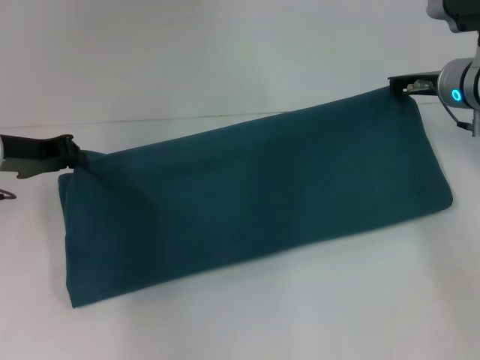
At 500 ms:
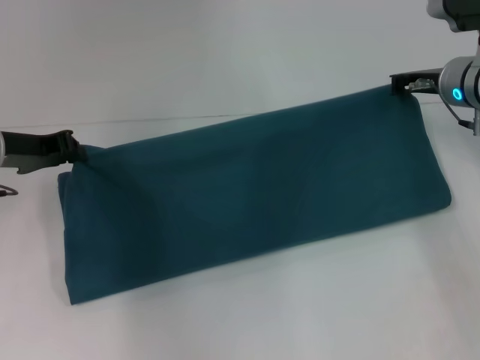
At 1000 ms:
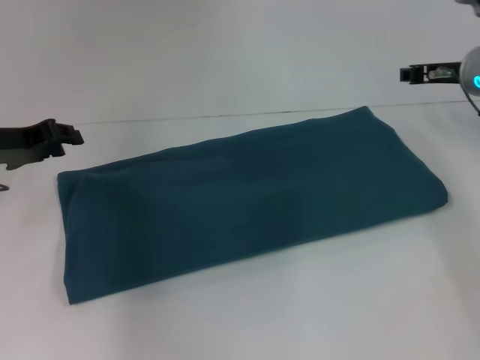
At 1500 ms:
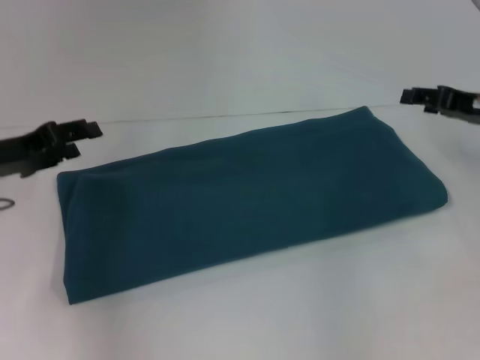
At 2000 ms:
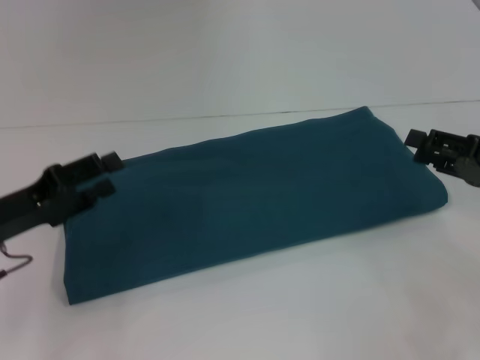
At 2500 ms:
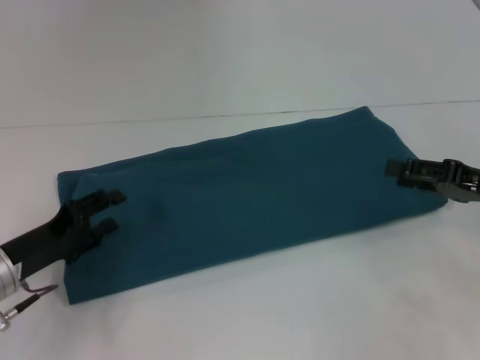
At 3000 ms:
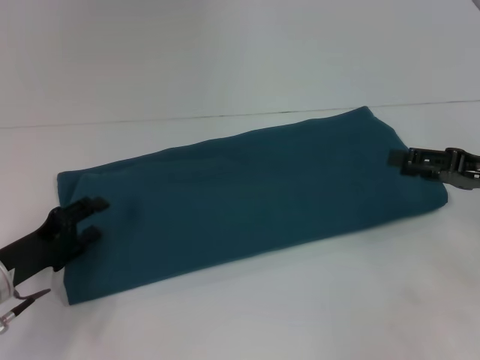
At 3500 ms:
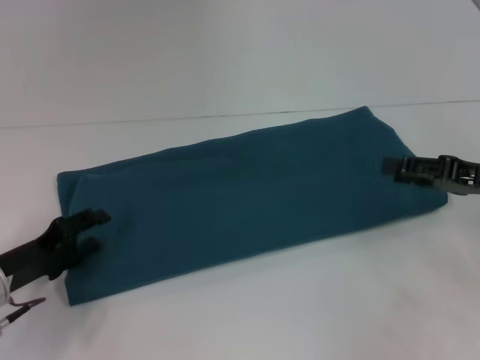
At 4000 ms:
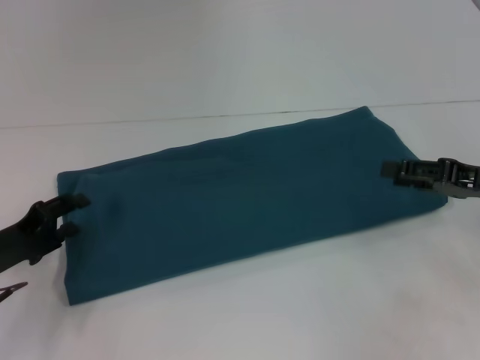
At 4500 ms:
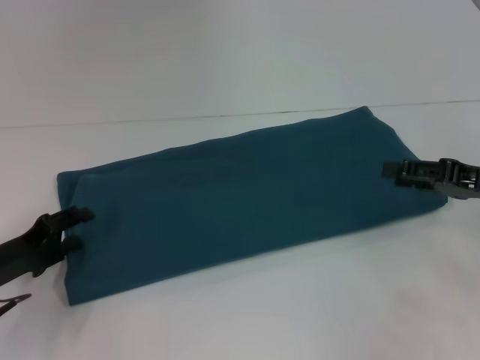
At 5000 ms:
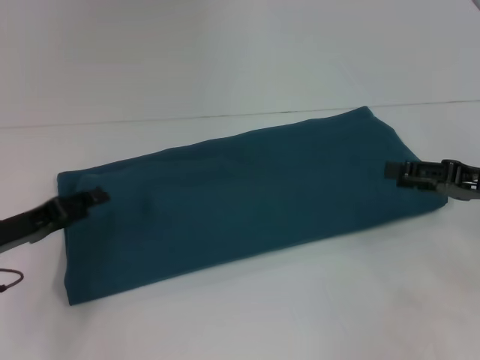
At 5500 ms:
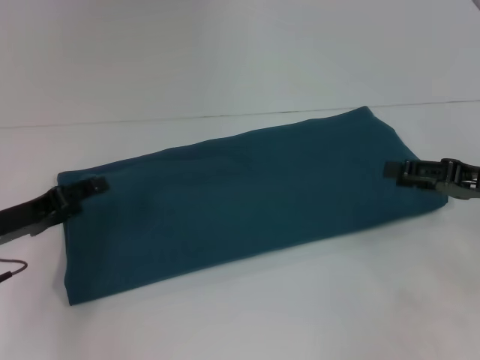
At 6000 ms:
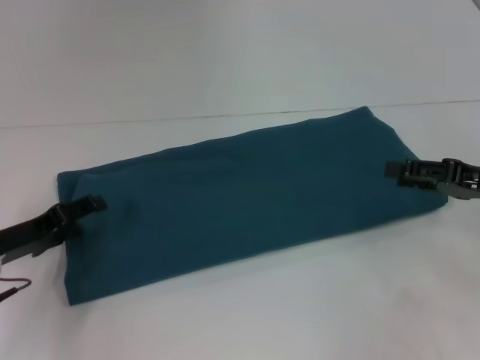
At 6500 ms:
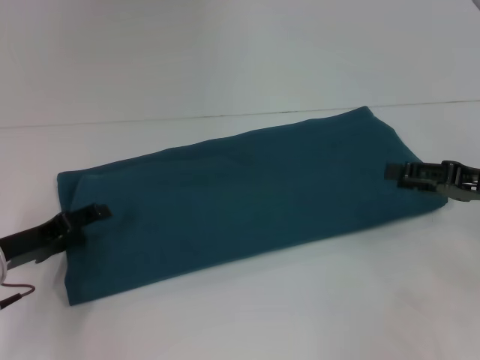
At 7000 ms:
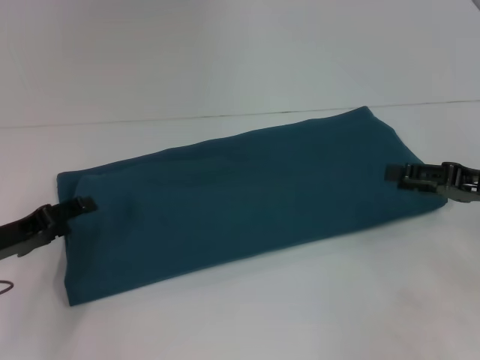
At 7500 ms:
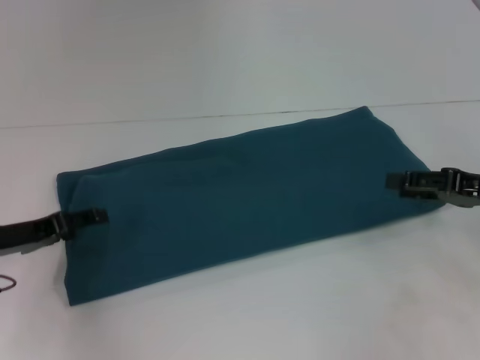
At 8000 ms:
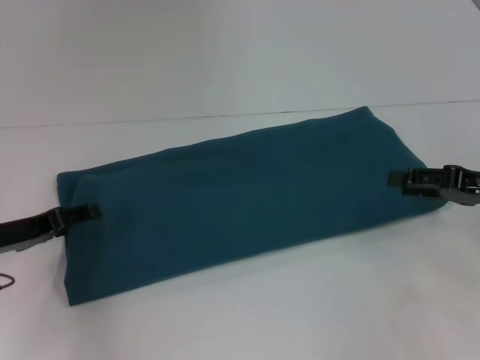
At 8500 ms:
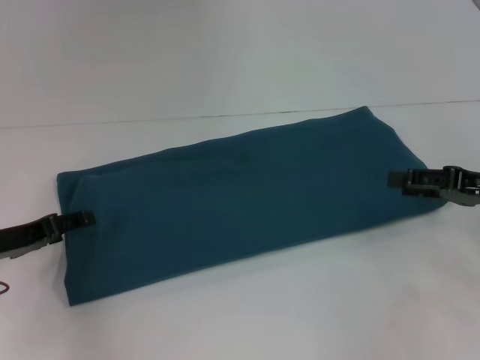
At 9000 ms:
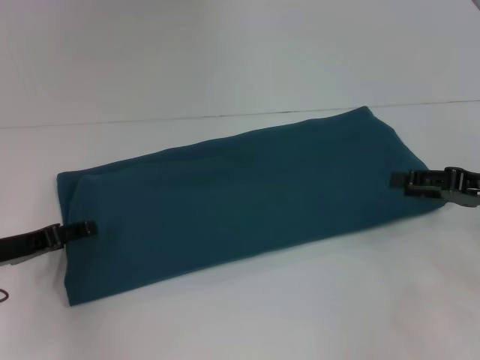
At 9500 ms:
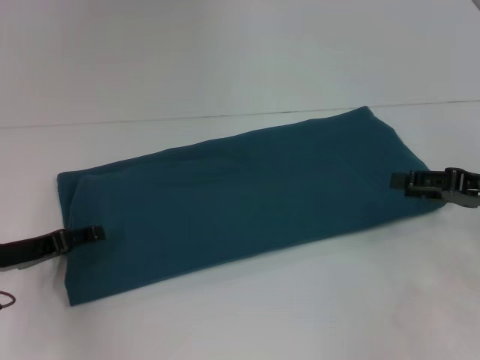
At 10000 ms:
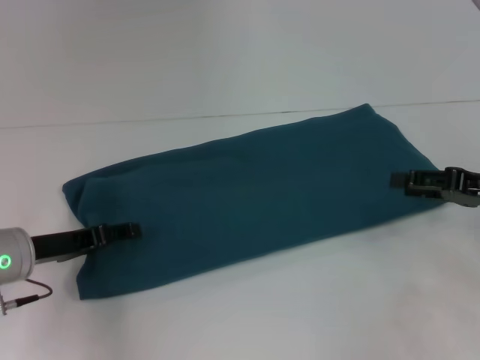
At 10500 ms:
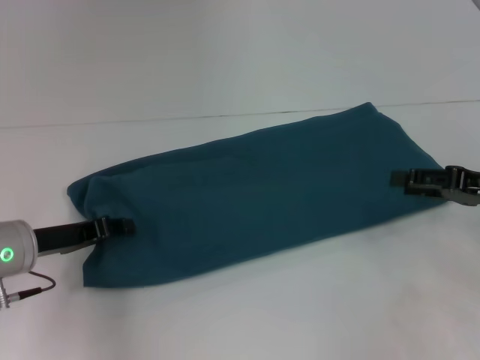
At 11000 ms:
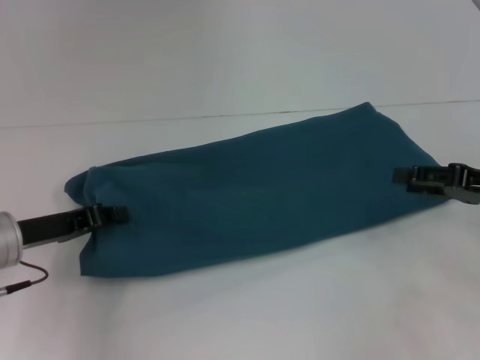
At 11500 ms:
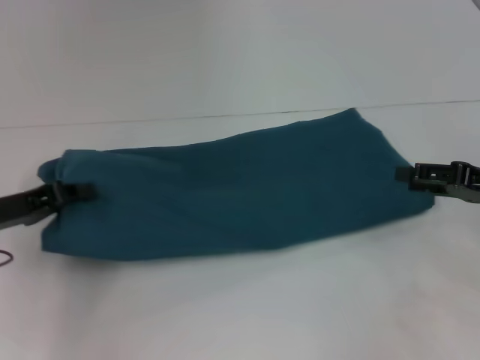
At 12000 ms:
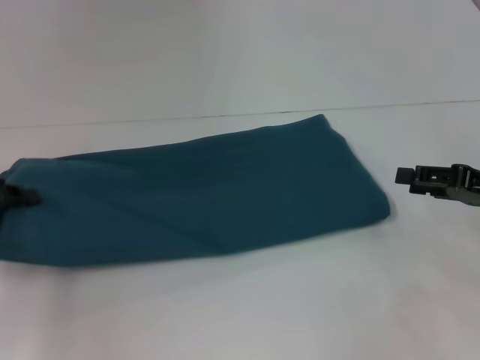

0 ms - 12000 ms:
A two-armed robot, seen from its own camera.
0 ms - 2000 ms: The left gripper is displaced backward and downward by roughly 10 cm, and opens up, while the right gripper goes roughly 15 cm backward and to the right, and opens.
2000 ms - 4000 ms: The left gripper goes some 5 cm downward.
6000 ms - 10000 ms: The grippers move only a little.
10000 ms - 12000 ms: The left gripper shifts approximately 10 cm to the left and upward, and closes up.

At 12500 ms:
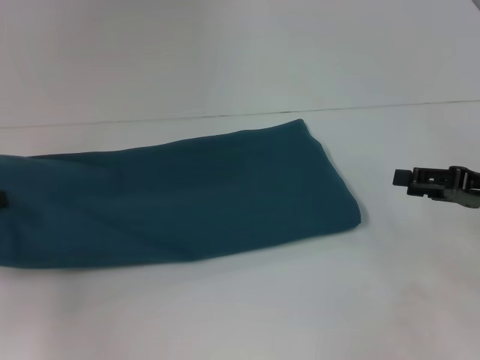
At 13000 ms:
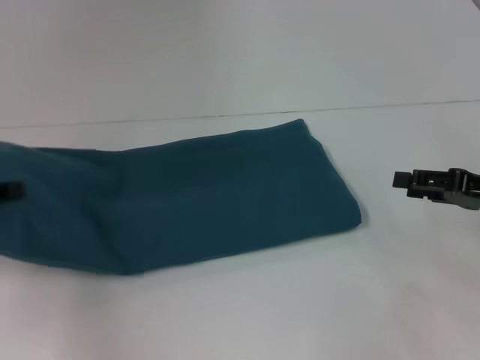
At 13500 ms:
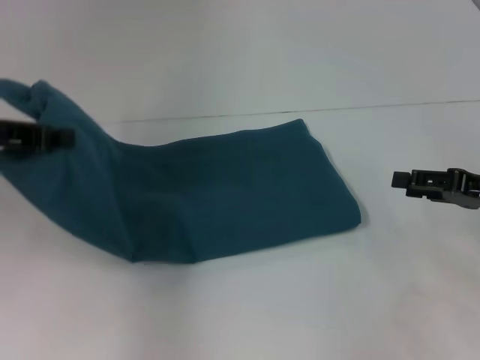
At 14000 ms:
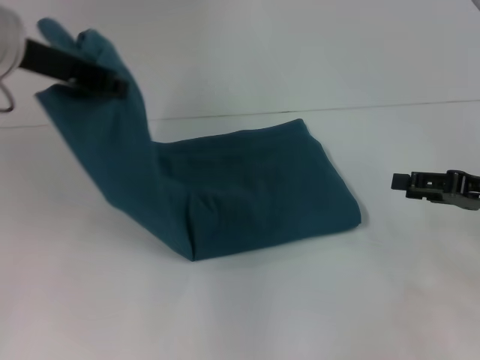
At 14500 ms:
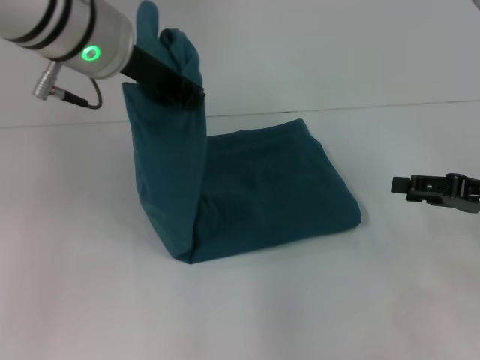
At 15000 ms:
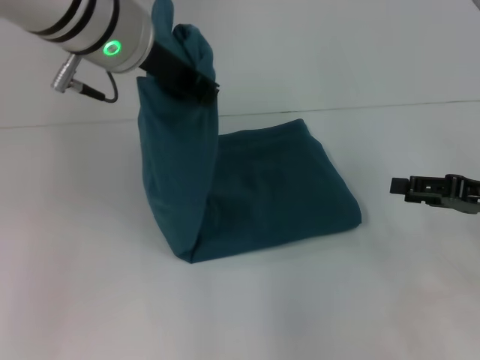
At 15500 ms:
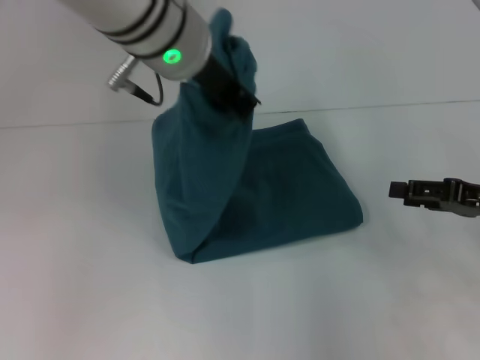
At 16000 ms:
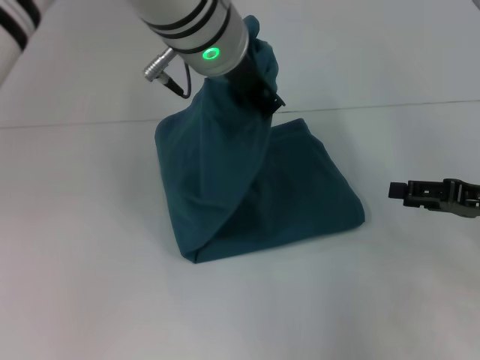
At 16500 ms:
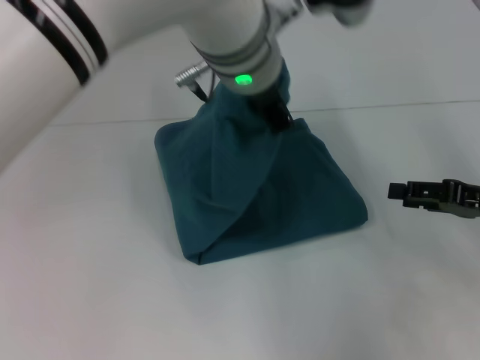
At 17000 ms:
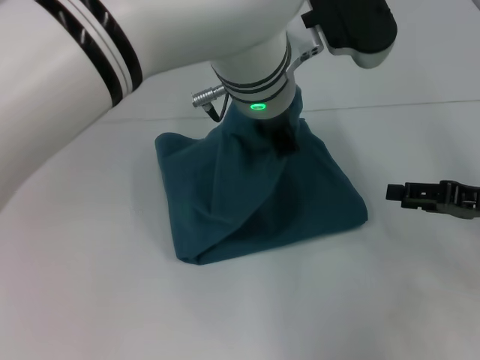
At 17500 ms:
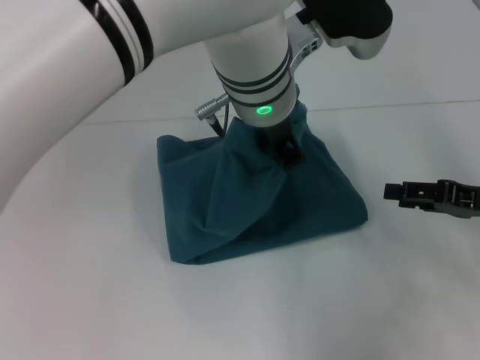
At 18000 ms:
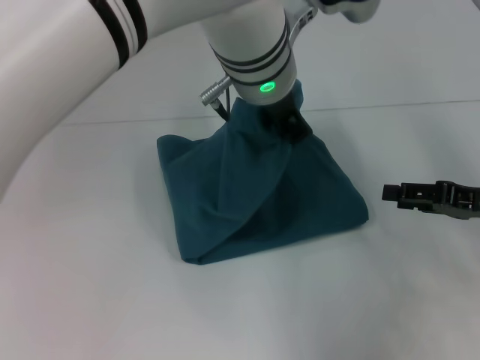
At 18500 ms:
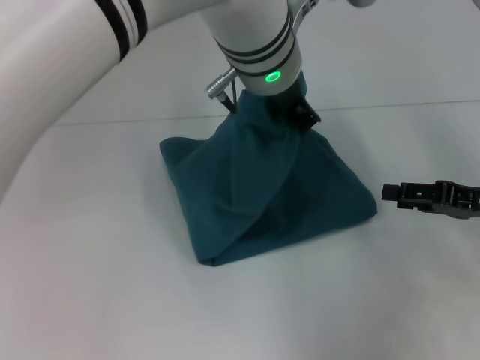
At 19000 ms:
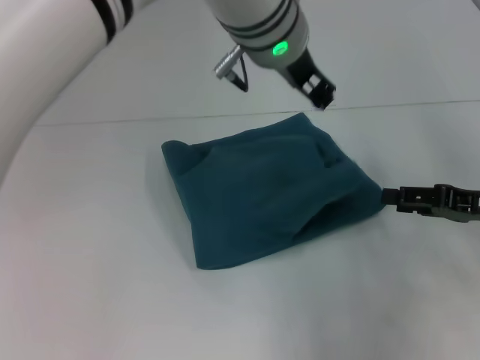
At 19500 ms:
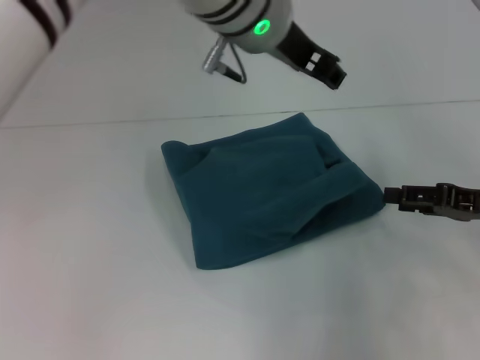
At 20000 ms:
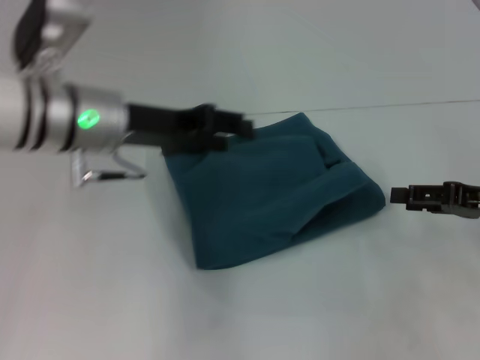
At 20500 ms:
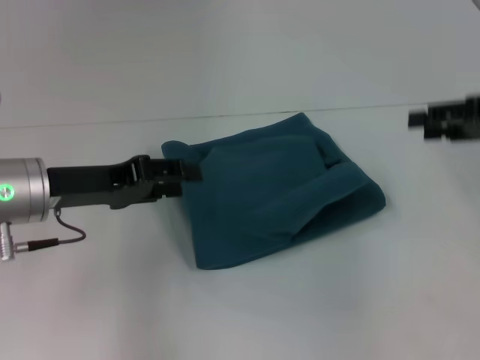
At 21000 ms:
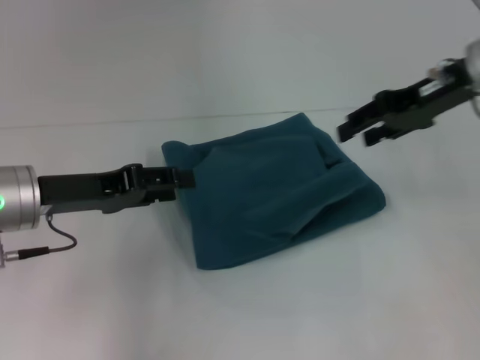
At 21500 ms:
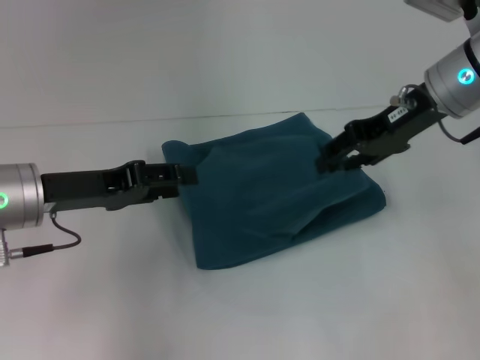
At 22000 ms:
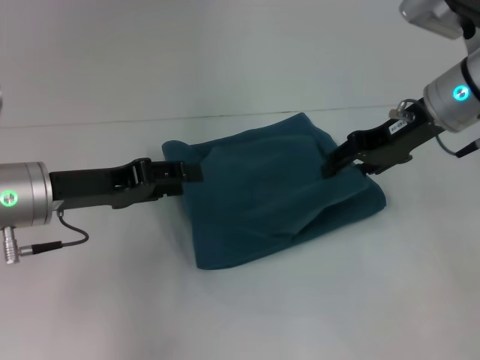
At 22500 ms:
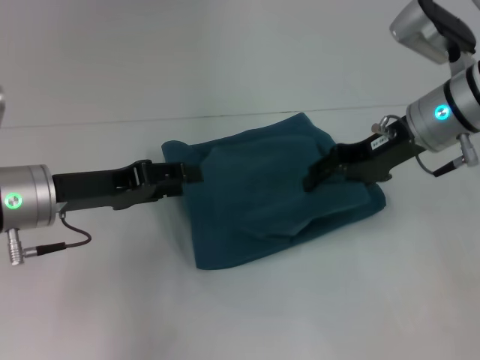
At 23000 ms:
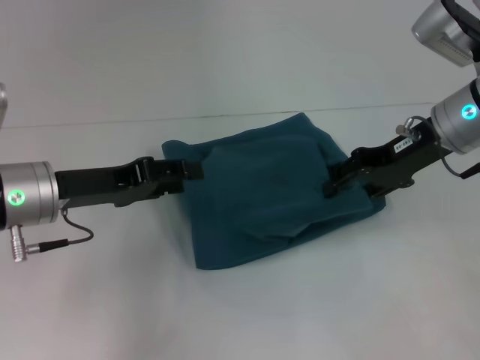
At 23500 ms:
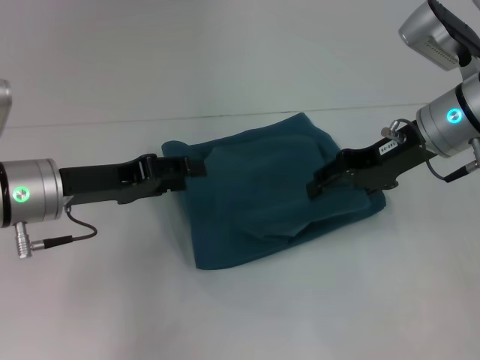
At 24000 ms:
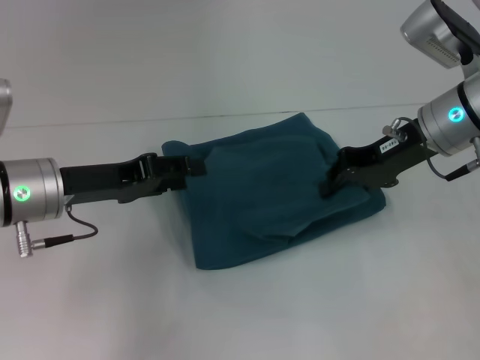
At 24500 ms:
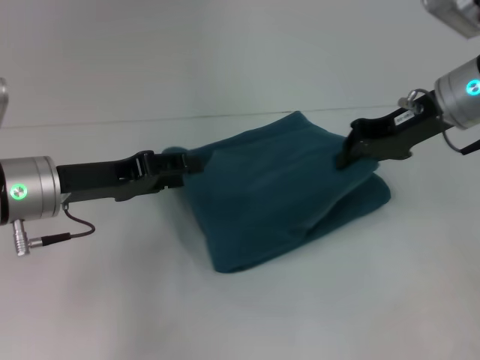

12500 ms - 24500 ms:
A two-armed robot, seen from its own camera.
Step, 12500 ms - 19000 ms: Fold the clothes to the left.
12500 ms - 14500 ms: The left gripper travels to the right and upward by about 30 cm.
14500 ms - 16500 ms: The left gripper moves to the right, approximately 15 cm.
16500 ms - 18500 ms: The grippers stay close to where they were, moving slightly.
18500 ms - 20500 ms: The right gripper moves upward and forward, about 10 cm. The left gripper travels to the left and downward by some 25 cm, and opens up.
20500 ms - 22500 ms: The right gripper is displaced to the left by roughly 15 cm.
22500 ms - 24500 ms: The right gripper closes up.

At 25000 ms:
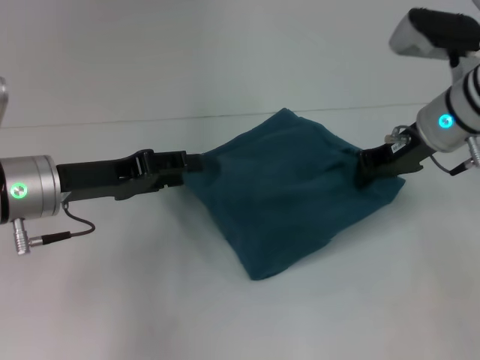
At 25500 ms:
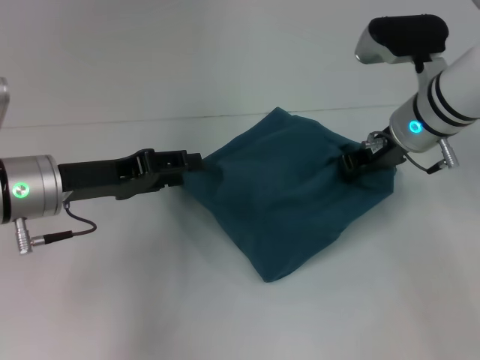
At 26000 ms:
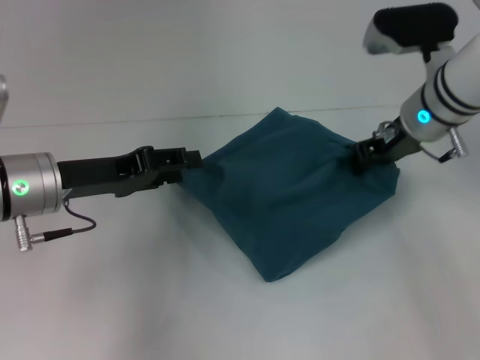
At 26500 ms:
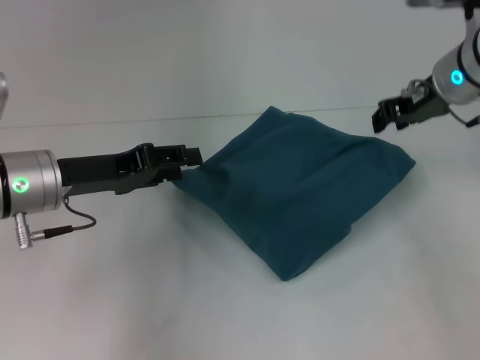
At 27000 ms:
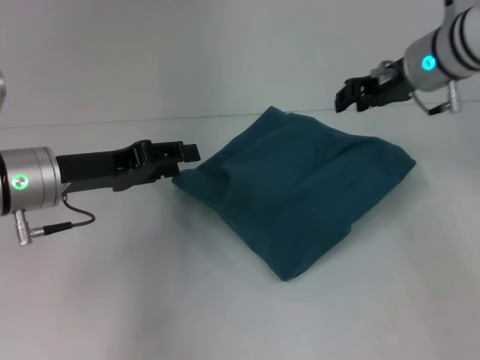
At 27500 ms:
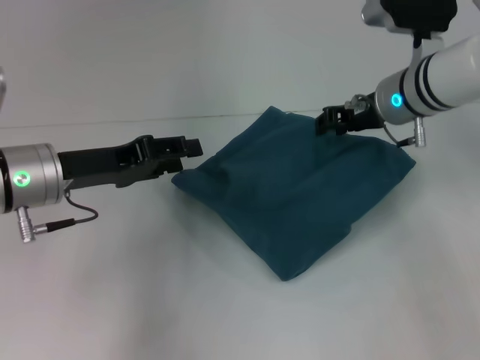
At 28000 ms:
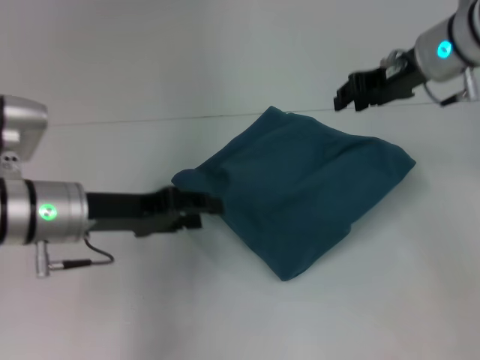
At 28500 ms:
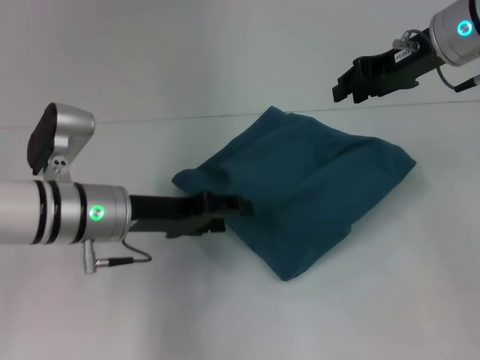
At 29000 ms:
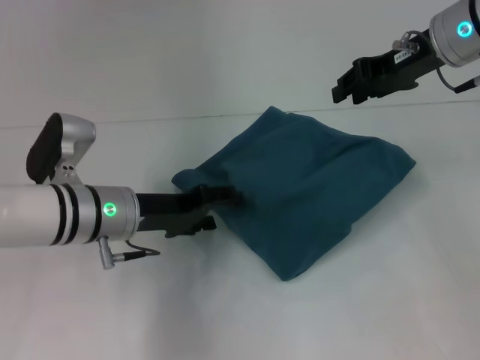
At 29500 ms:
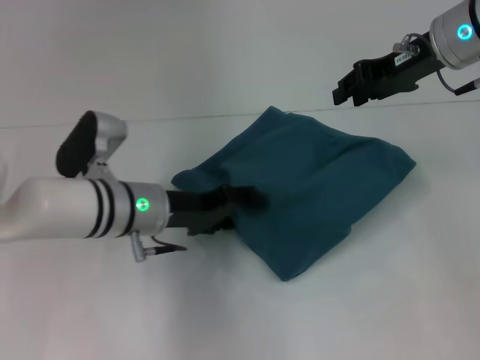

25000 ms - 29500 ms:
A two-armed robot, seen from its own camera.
25000 ms - 27000 ms: The right gripper shifts by about 5 cm, and opens.
27000 ms - 29500 ms: The left gripper is displaced to the right and downward by some 10 cm.
